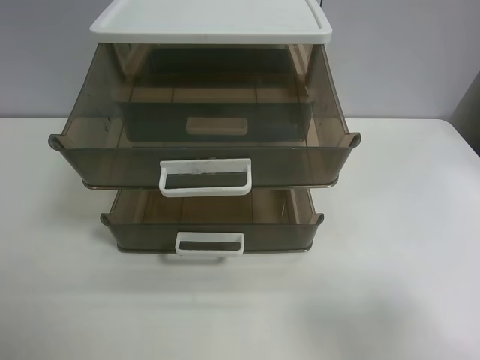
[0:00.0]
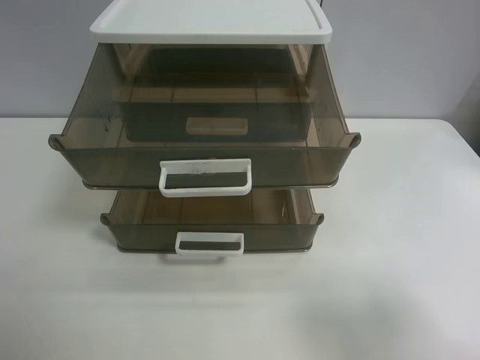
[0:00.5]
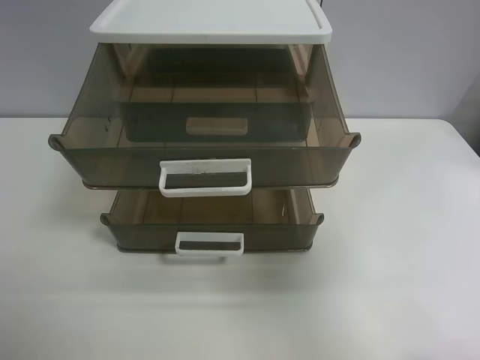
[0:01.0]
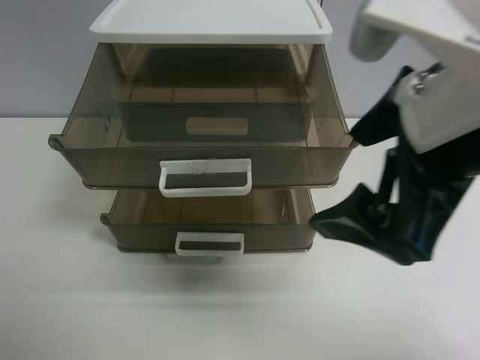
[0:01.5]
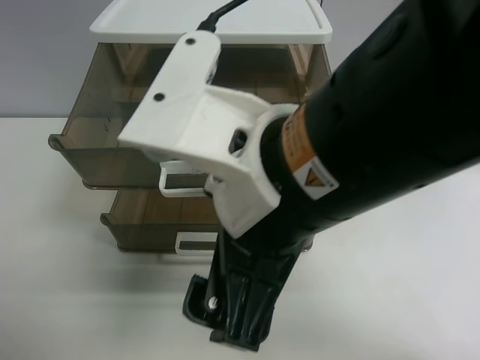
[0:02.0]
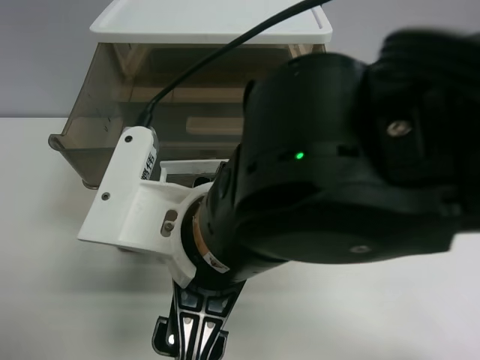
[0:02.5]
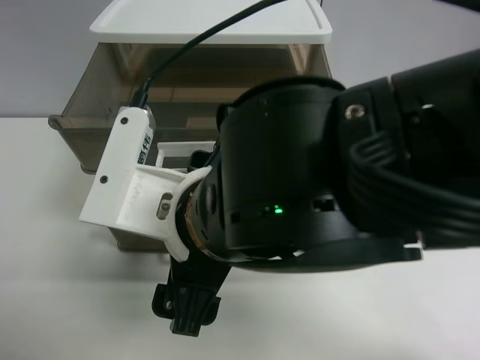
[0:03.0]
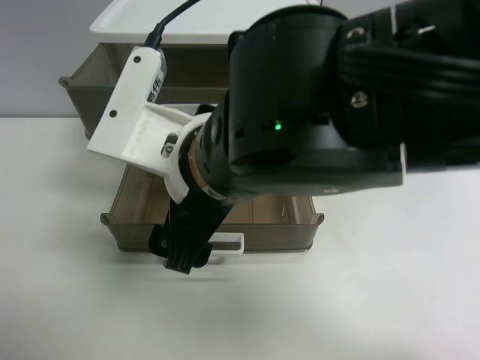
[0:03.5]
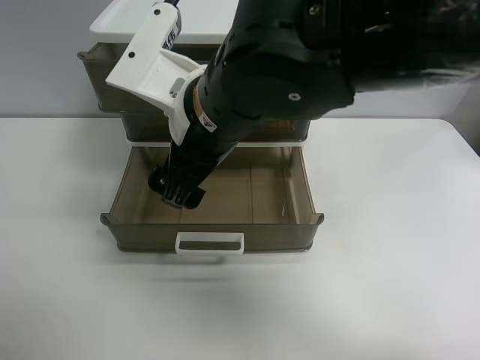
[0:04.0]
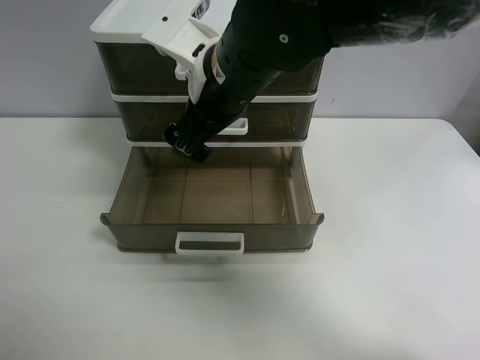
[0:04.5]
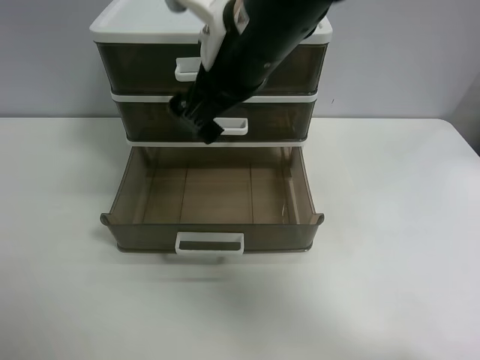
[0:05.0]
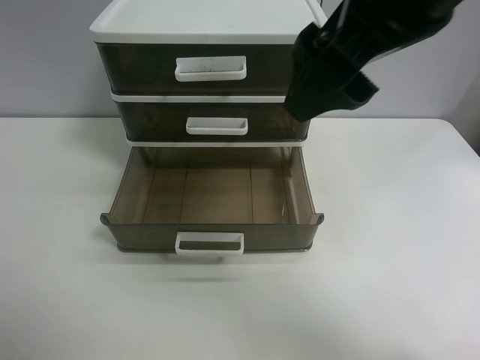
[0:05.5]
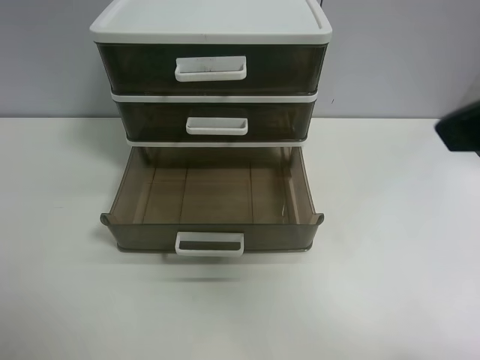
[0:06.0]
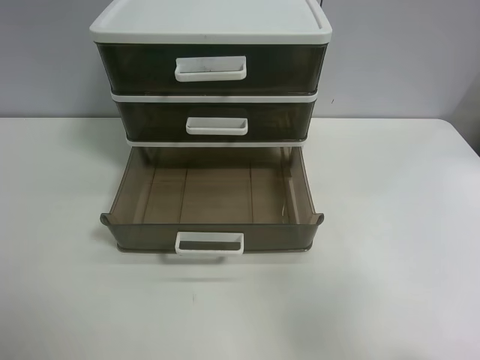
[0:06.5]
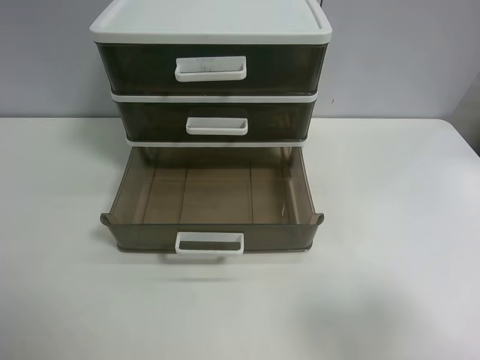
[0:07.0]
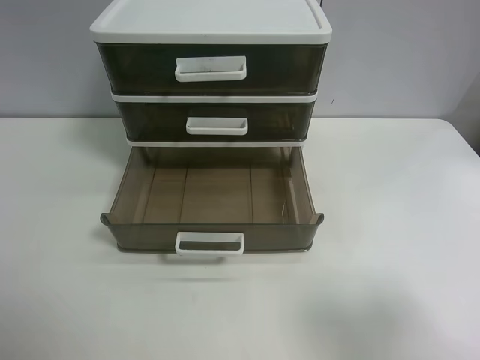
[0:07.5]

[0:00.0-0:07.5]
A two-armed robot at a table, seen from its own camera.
Task of the whole recording: close the top drawer.
Step, 0:00.0 to 0:02.5: Use the right gripper to touch the topmost layer of the storage cabinet.
Step, 0:03.0 to 0:04.5: Push the top drawer closed.
0:00.0 to 0:02.0: The right gripper is displaced to the left and forward by approximately 30 cm.
0:02.0 to 0:04.0: The right gripper goes about 10 cm forward.
0:04.0 to 0:05.5: The right gripper is displaced upward and to the right by roughly 20 cm.
0:05.5 to 0:07.5: The right gripper heads to the right, backward and downward, covering about 30 cm.
